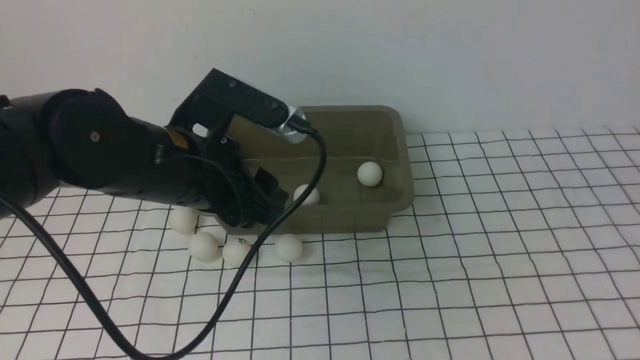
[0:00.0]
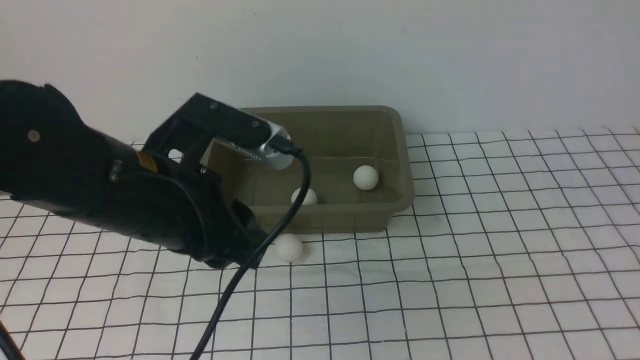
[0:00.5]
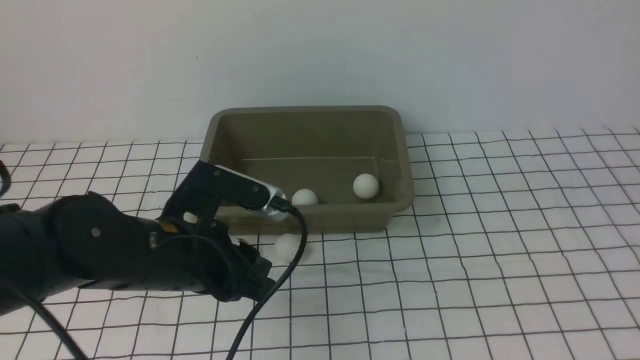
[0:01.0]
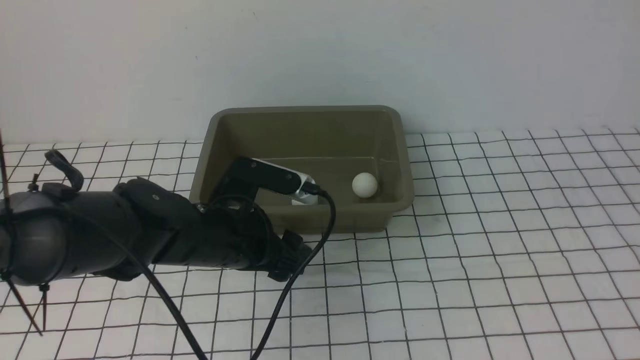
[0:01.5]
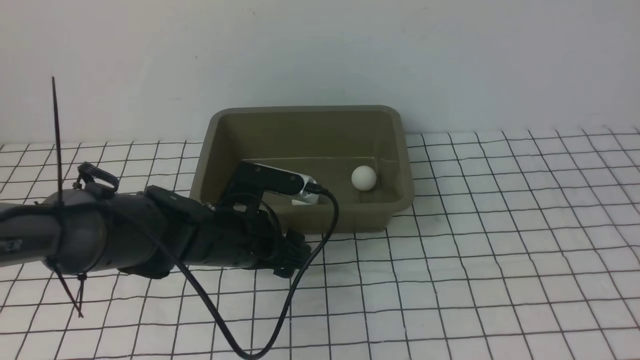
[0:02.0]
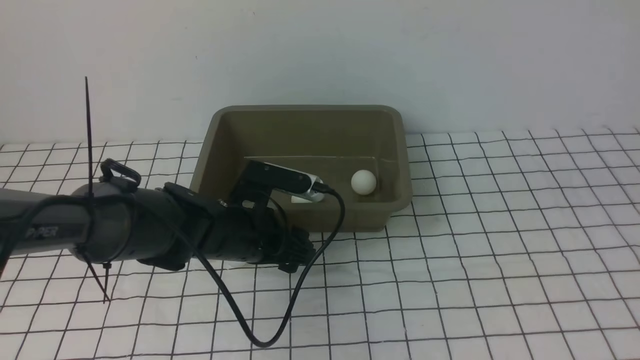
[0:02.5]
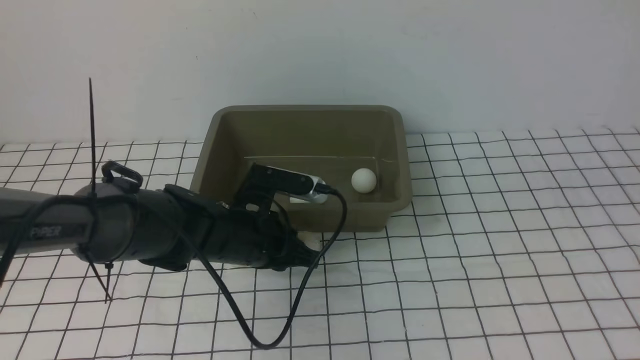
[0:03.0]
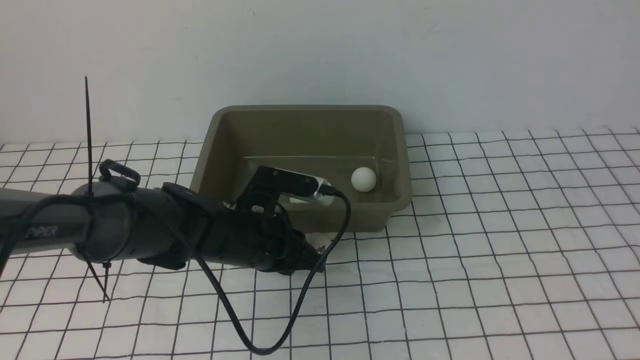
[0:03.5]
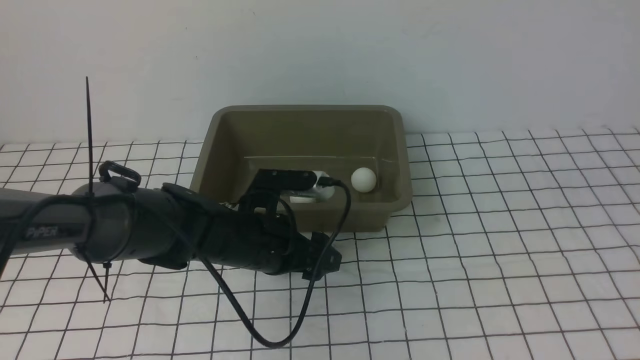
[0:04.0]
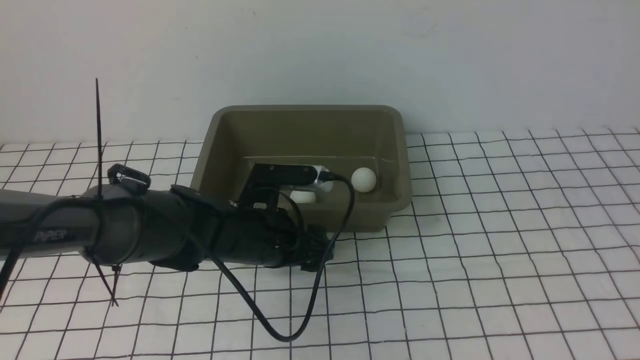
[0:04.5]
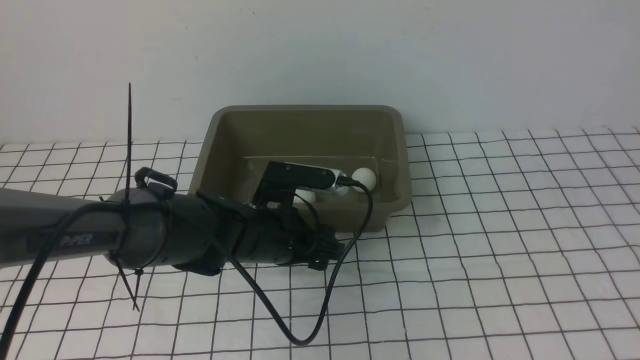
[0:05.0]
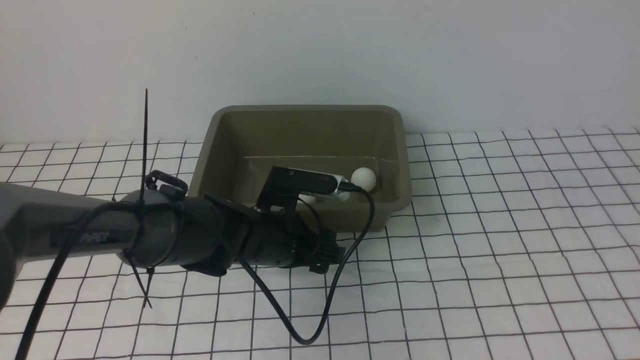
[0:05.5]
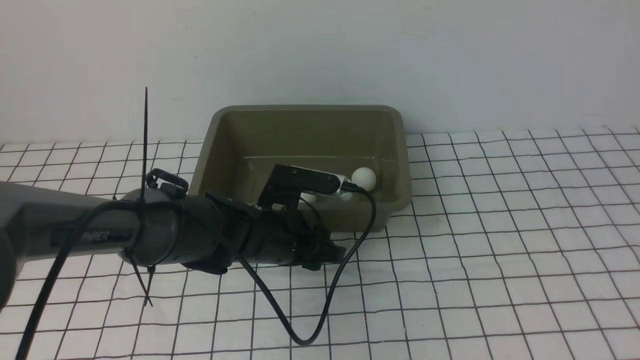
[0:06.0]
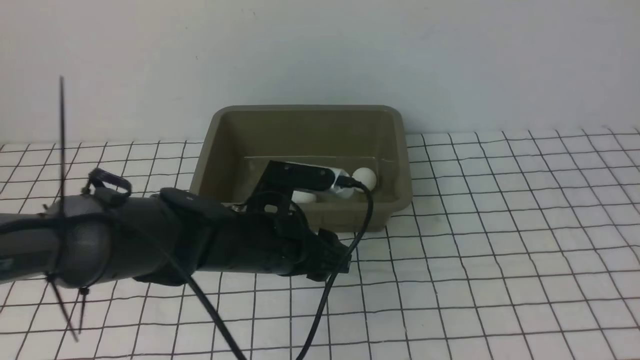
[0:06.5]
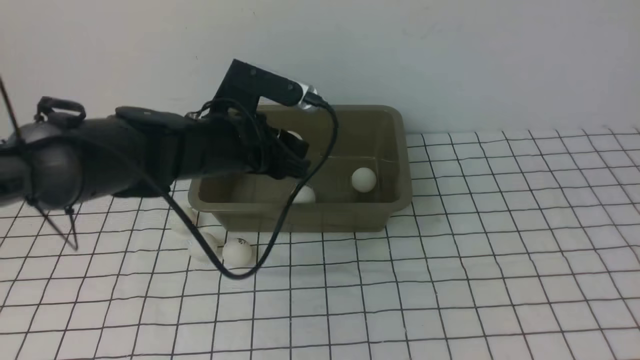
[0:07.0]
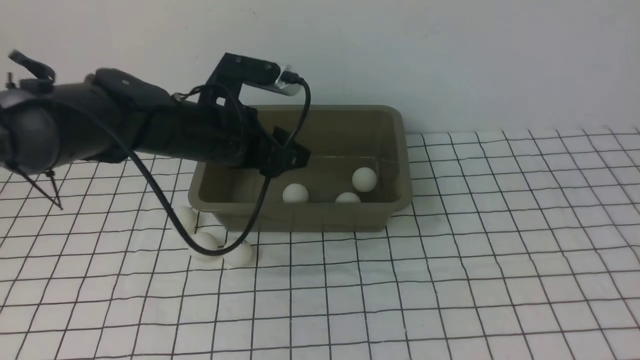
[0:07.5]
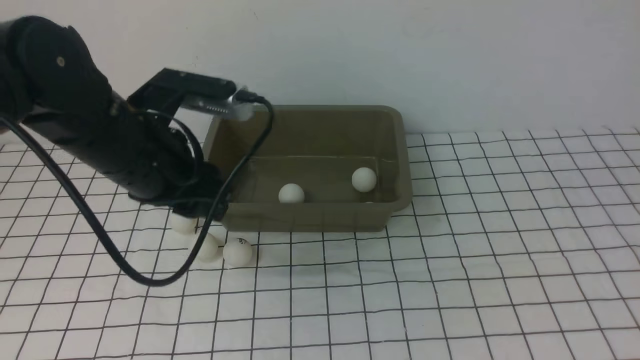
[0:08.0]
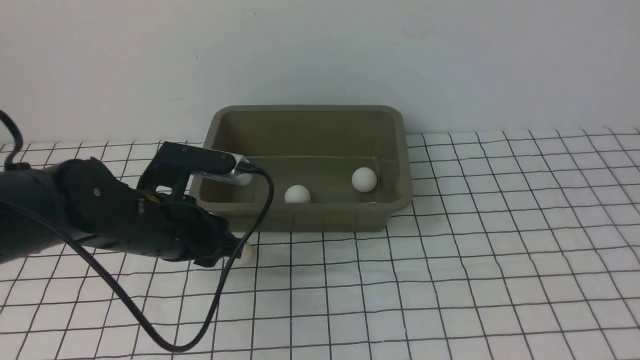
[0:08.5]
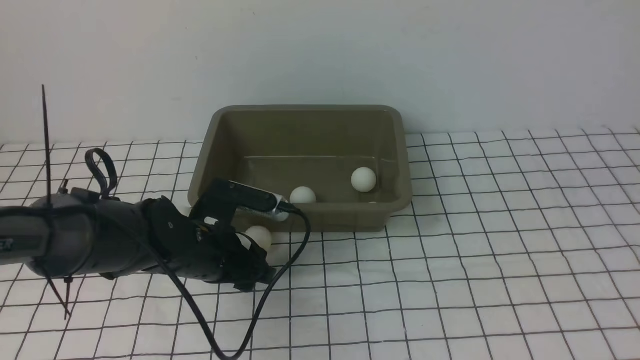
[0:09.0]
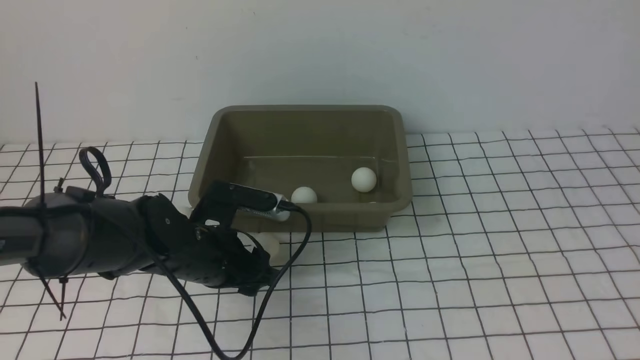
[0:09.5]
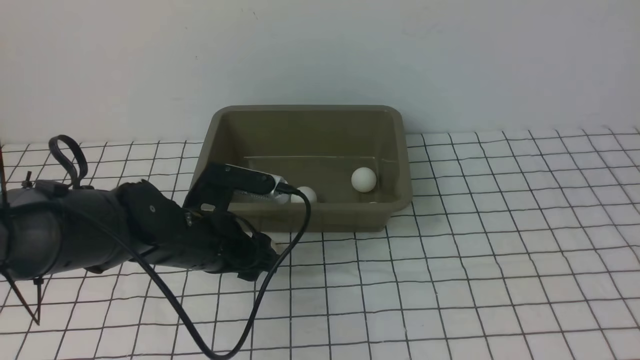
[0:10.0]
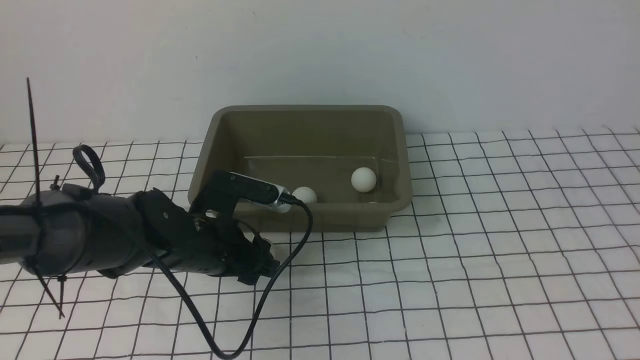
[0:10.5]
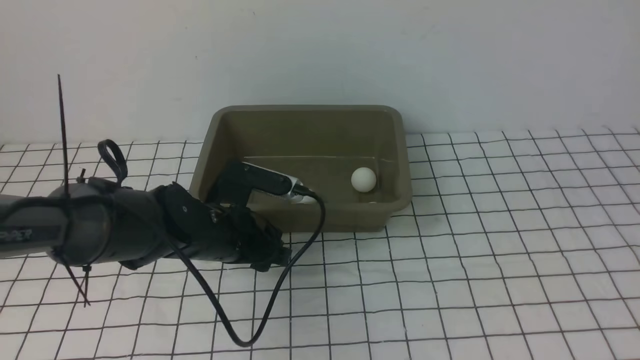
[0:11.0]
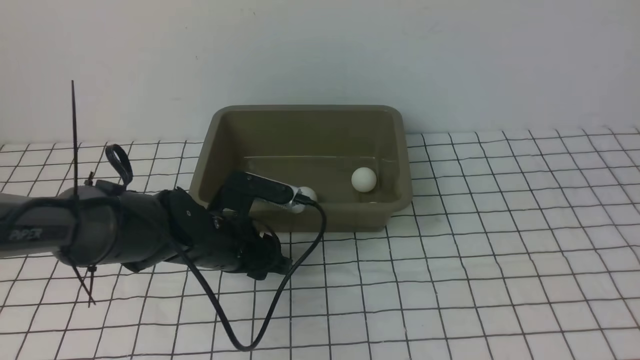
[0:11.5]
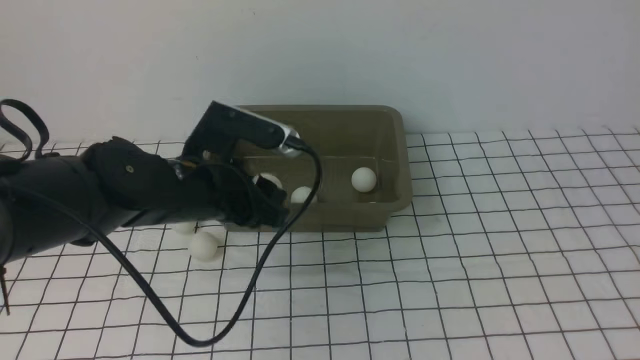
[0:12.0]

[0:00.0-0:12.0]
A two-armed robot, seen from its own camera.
Step, 0:00.0 to 0:06.0: use the left arm to clamp the table tennis ball closest to it.
Step, 0:07.0 to 0:07.5: use the left arm to put the table tennis ball into the box.
Step, 0:08.0 to 0:11.5: use the left arm to clamp the table tennis ball closest to it.
0:00.0 to 0:02.0: The left gripper heads downward, covering some 15 cm.
0:02.0 to 0:04.0: The left gripper closes and opens again.
0:04.0 to 0:06.0: The left gripper closes up.
0:06.0 to 0:08.0: The left gripper moves upward and to the left, approximately 20 cm.
0:08.0 to 0:10.0: The left gripper heads downward, covering roughly 10 cm.
0:10.0 to 0:12.0: The grippers move only a little.

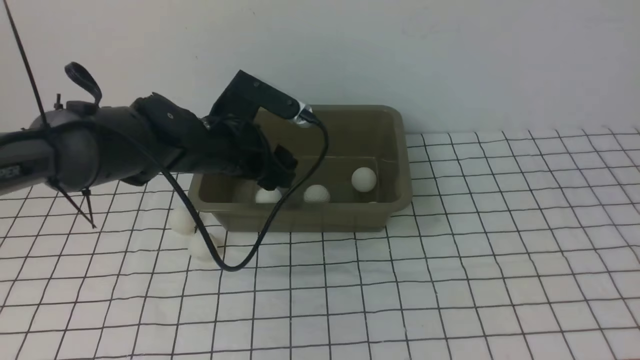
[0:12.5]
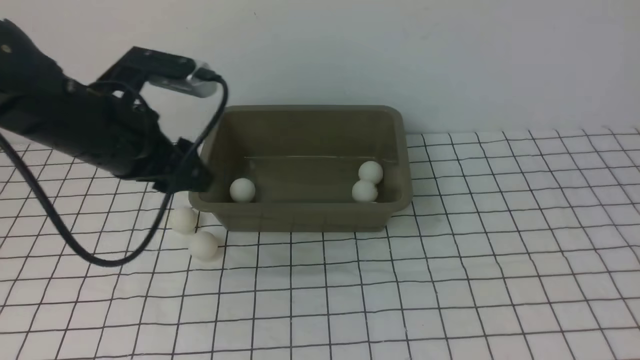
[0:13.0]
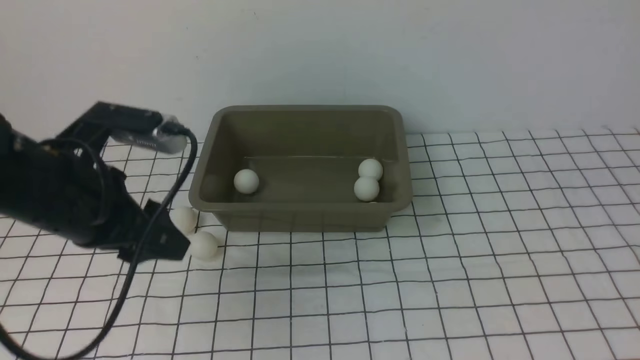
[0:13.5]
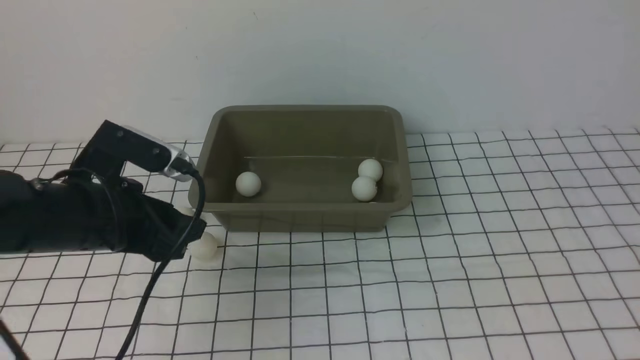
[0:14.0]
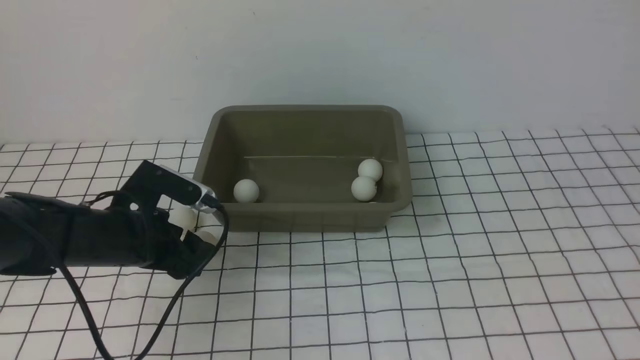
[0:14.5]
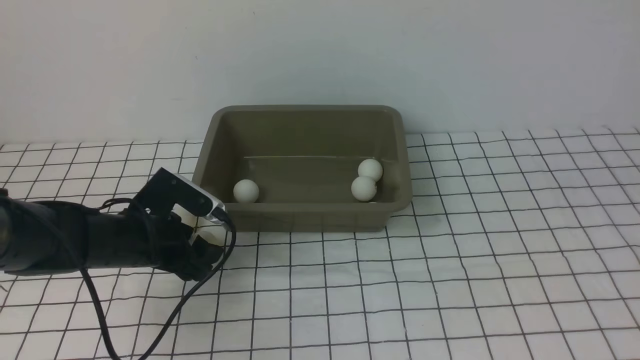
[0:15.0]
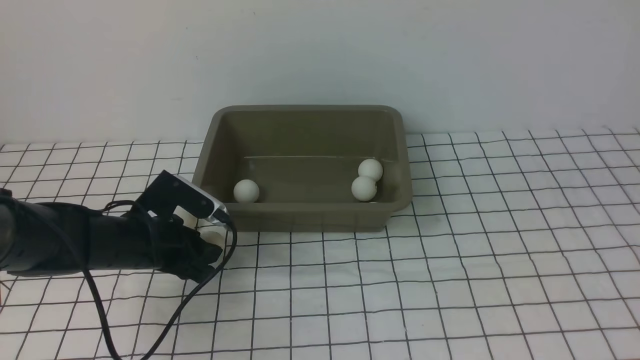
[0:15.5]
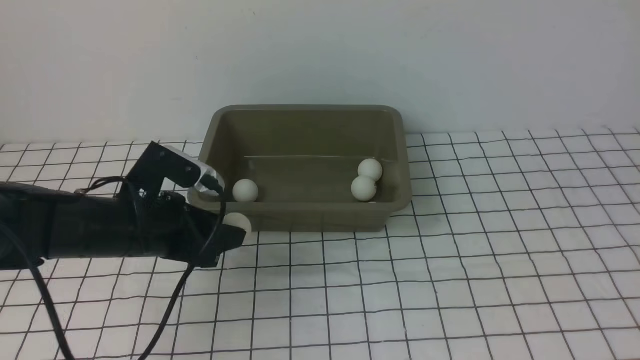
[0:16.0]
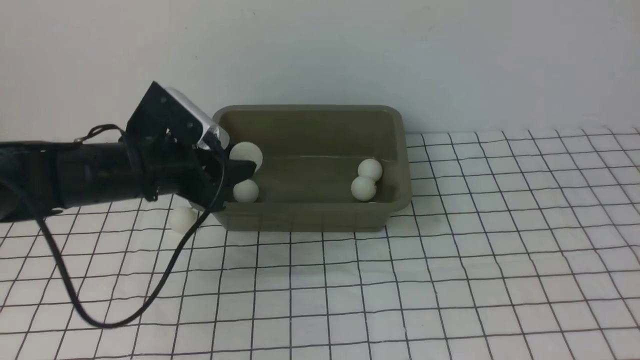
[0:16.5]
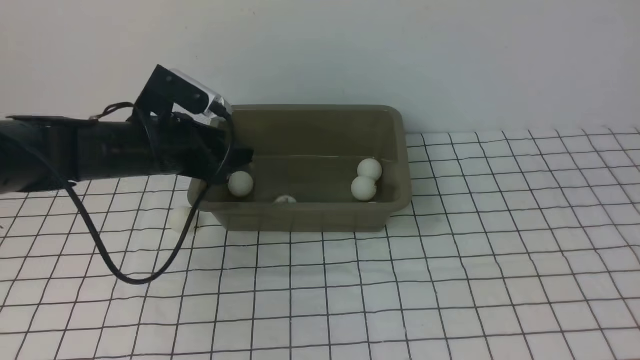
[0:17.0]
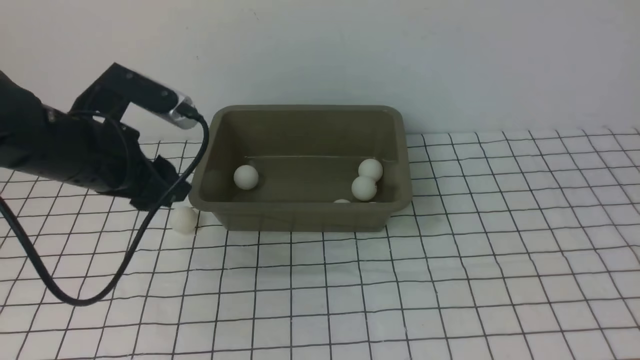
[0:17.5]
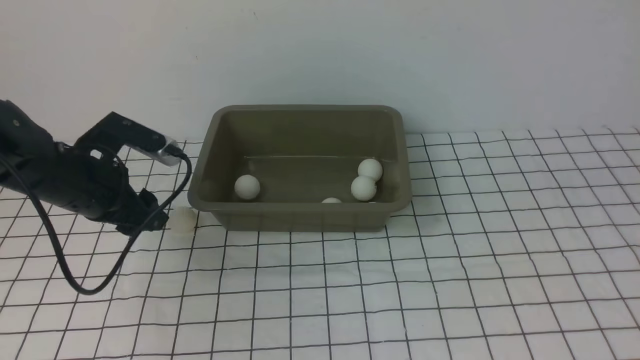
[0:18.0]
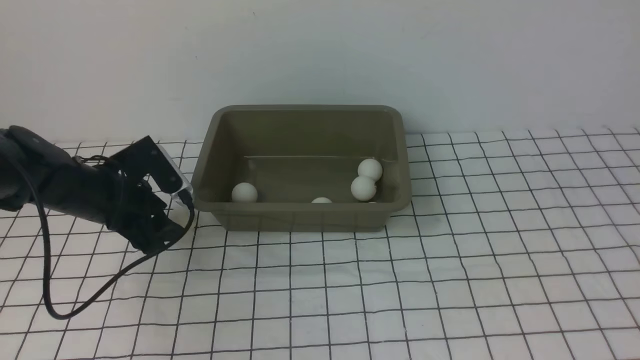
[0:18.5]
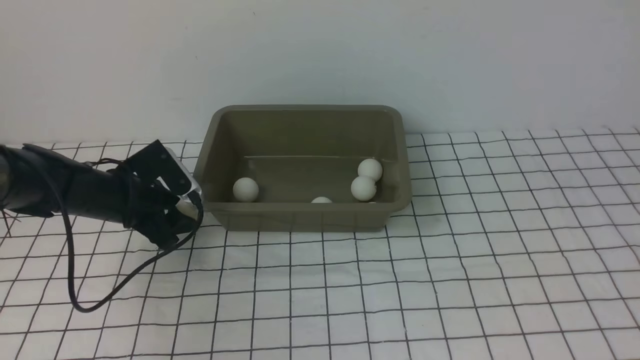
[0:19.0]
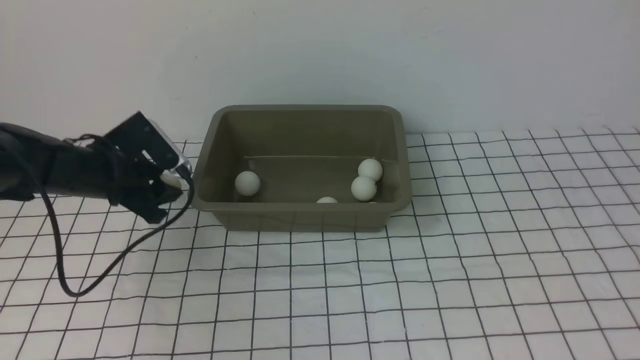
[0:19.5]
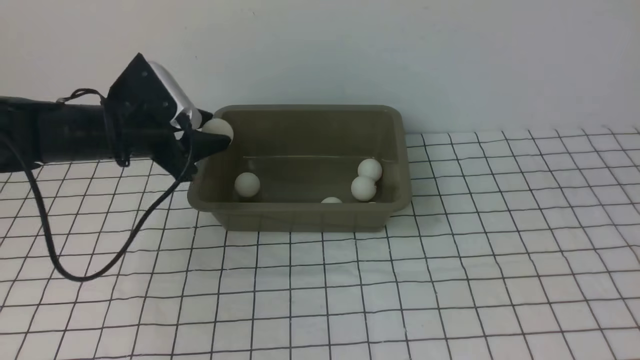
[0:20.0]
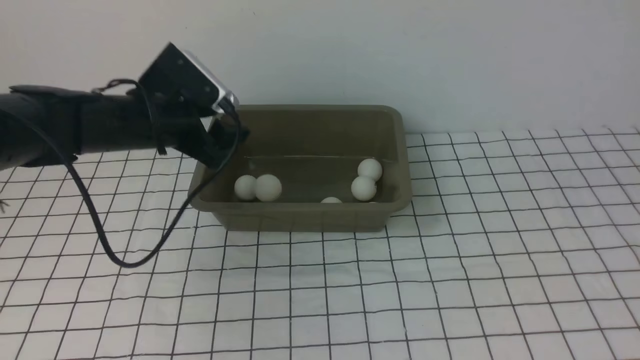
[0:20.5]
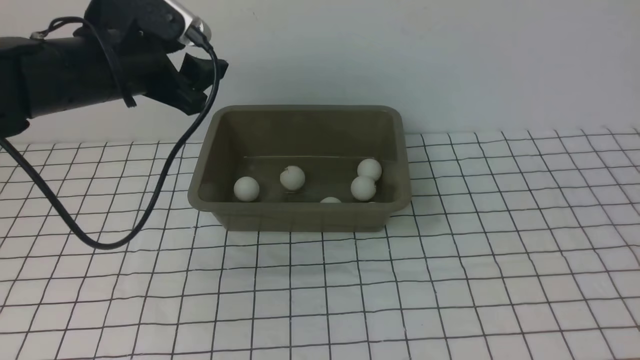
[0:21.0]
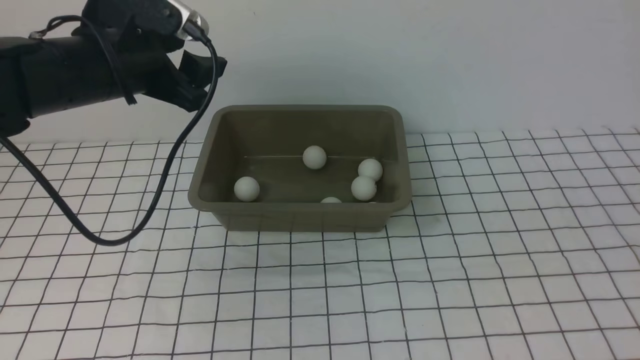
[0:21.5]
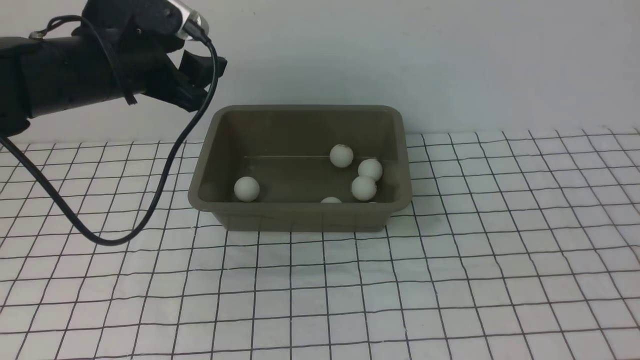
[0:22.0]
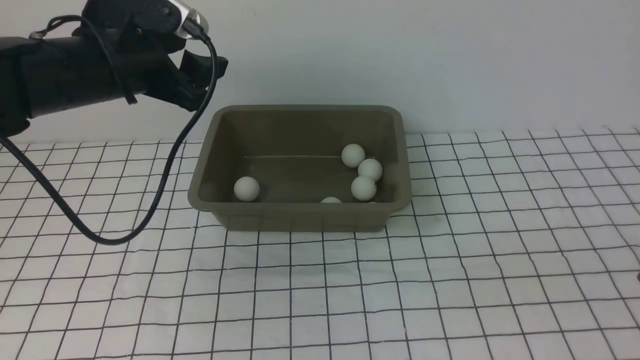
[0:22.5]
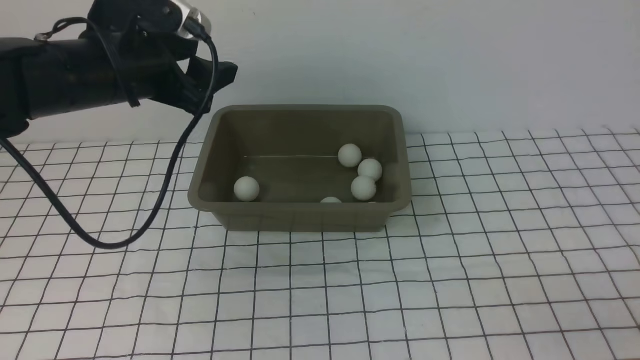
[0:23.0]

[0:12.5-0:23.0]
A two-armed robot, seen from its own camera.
Step, 0:13.0 to 0:15.5: use the left arm to clamp the table tennis ball closest to it.
Step, 0:17.0 to 0:19.5: use the left arm to clamp the table tennis ball closest to it.
Step, 0:20.0 to 0:20.5: use the left arm to put the table tennis ball into the box.
0:12.5 to 0:14.5: The left gripper shifts about 15 cm to the left, backward and downward.
0:14.5 to 0:16.5: The left gripper is displaced forward by roughly 5 cm.
0:16.5 to 0:19.0: The left gripper heads downward and to the left, covering approximately 10 cm.
0:19.0 to 0:21.0: The left gripper travels upward by about 20 cm. Meanwhile the right gripper heads backward and downward, covering about 10 cm.
